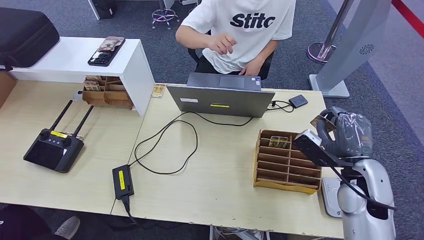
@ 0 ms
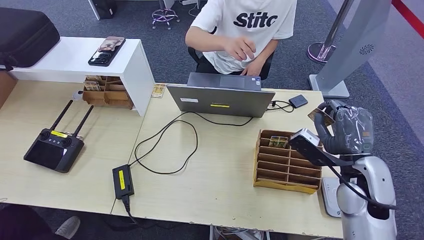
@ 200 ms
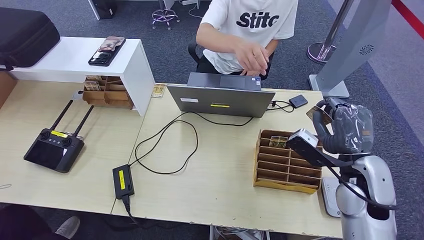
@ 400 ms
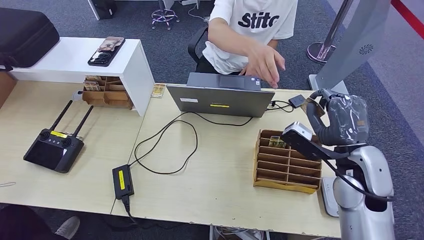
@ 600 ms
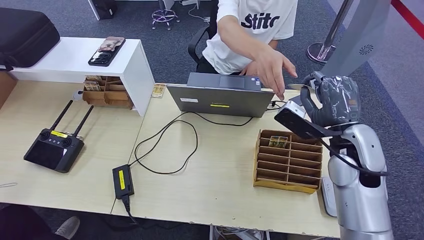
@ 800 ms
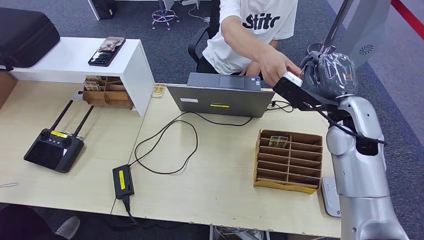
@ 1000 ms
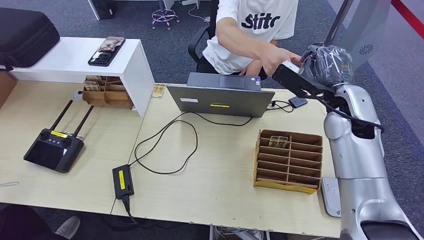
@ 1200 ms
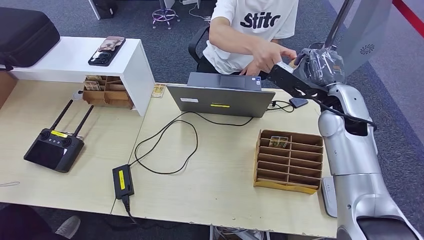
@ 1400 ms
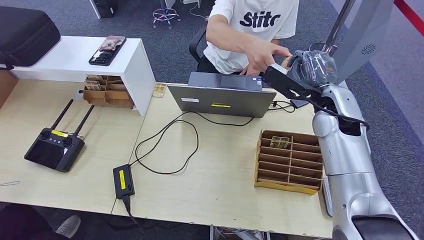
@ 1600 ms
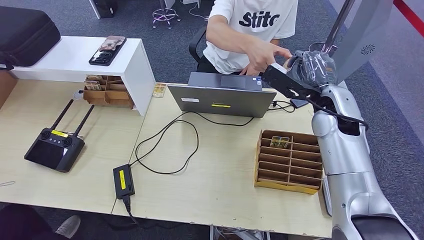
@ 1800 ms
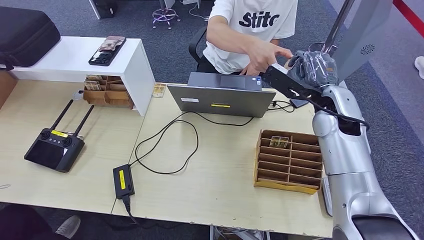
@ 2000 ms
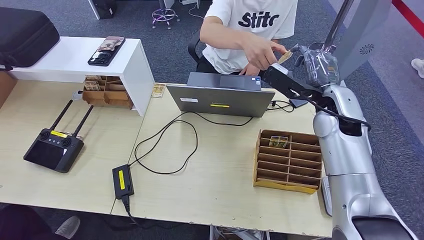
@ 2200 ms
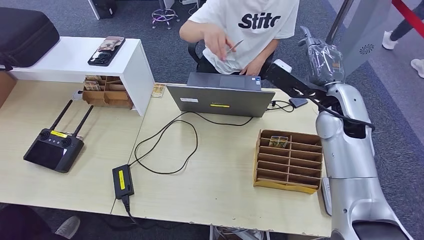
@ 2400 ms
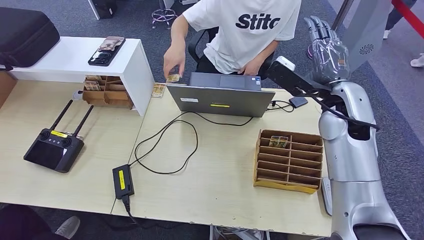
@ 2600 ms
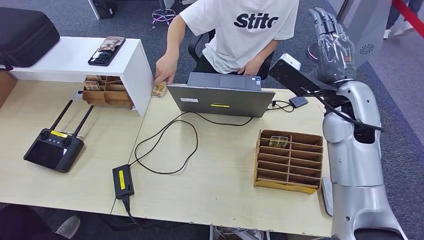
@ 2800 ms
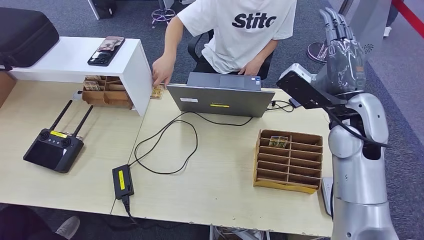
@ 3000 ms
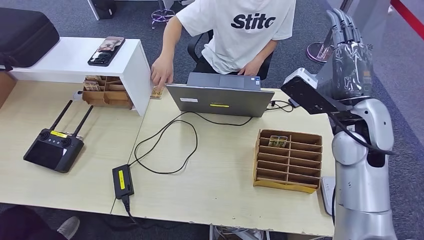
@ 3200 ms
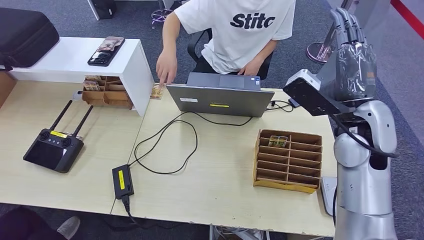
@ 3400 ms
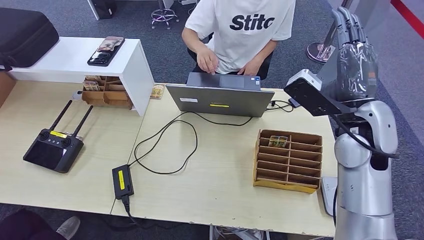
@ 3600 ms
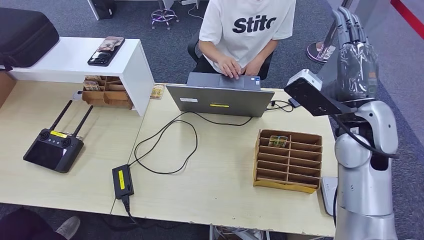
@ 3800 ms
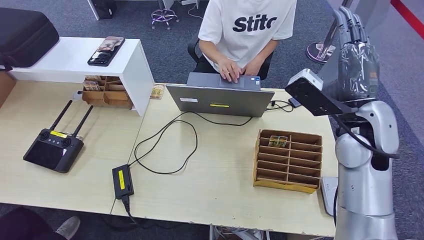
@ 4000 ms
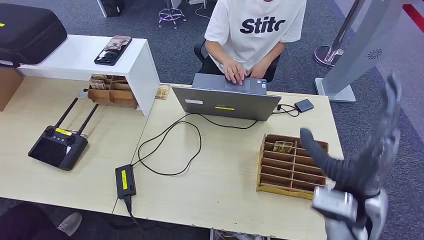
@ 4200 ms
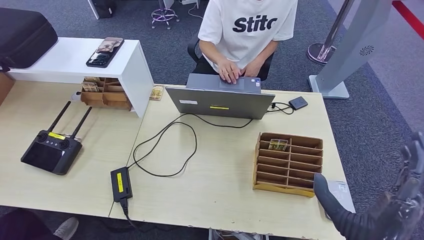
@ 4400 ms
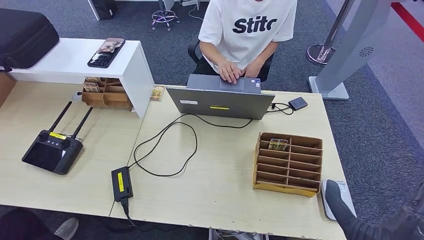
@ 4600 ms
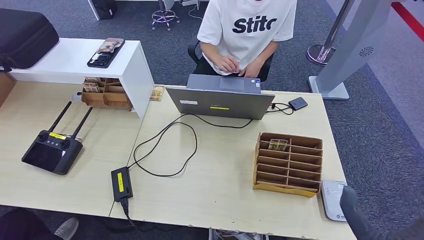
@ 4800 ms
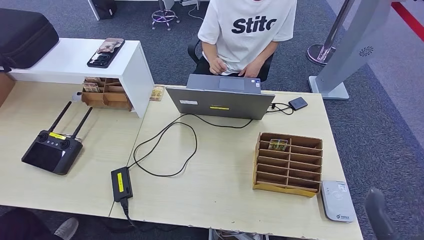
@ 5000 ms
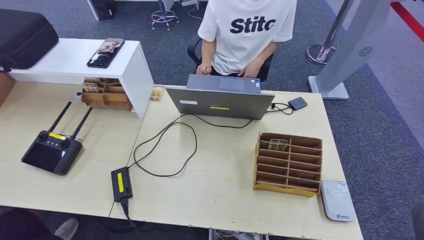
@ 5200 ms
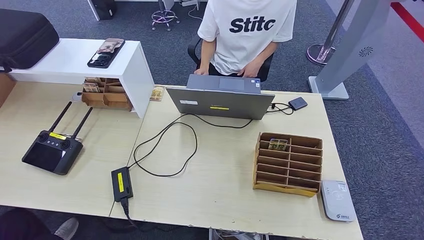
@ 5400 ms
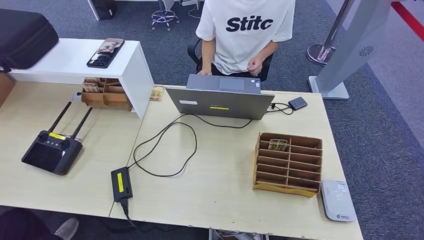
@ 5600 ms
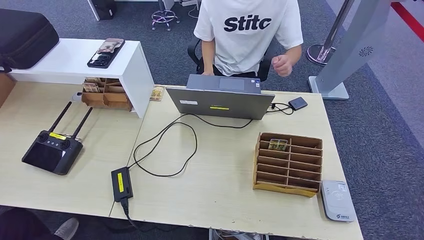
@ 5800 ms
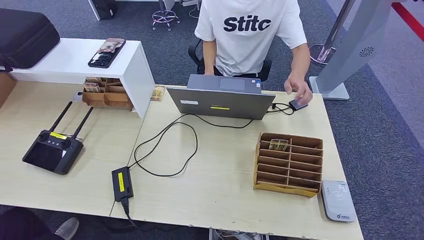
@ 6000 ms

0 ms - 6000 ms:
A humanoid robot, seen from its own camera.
Step, 0 ms - 6000 ms: Hand the room key to the person.
0 ms - 1600 ms: The right hand moves forward, upward and to the left, some 20 cm.
1600 ms - 3000 ms: The right hand goes some 5 cm backward.
4400 ms - 6000 ms: The right hand shifts roughly 25 cm to the right, downward and backward.
